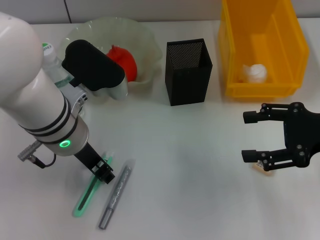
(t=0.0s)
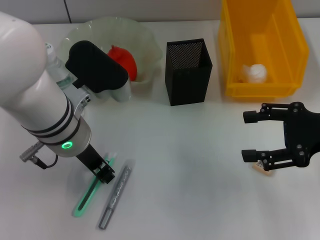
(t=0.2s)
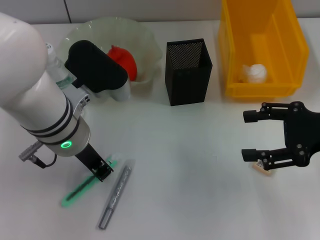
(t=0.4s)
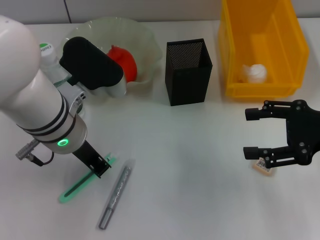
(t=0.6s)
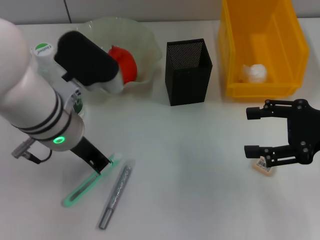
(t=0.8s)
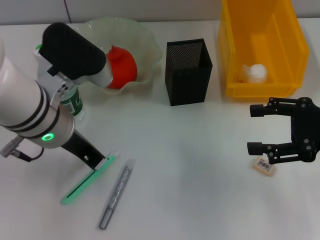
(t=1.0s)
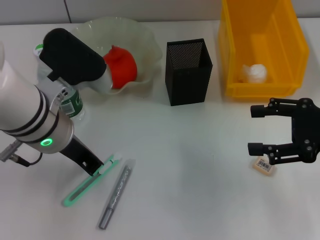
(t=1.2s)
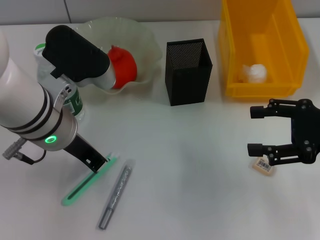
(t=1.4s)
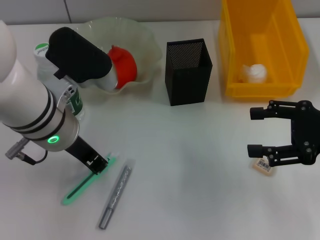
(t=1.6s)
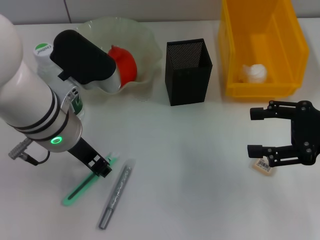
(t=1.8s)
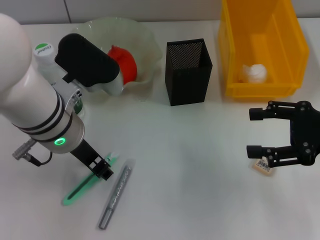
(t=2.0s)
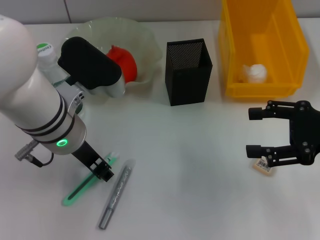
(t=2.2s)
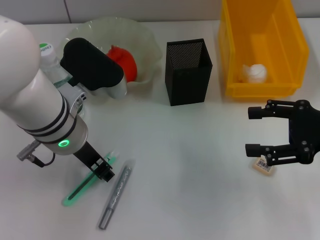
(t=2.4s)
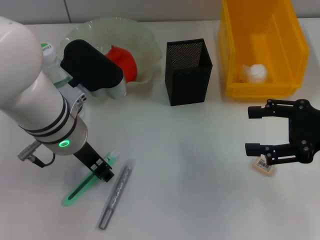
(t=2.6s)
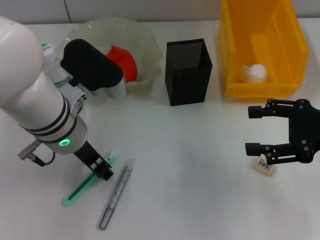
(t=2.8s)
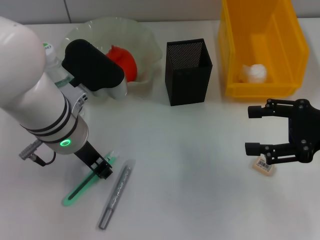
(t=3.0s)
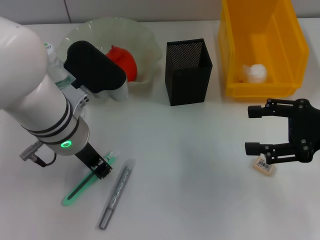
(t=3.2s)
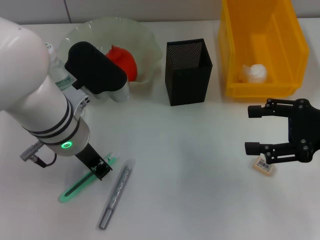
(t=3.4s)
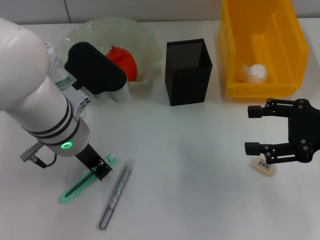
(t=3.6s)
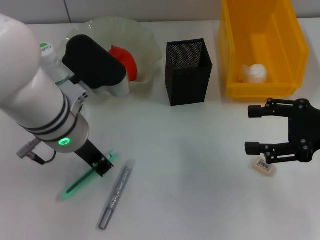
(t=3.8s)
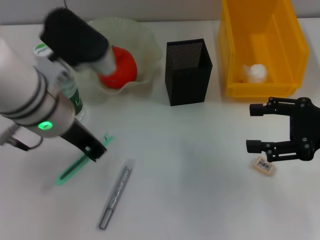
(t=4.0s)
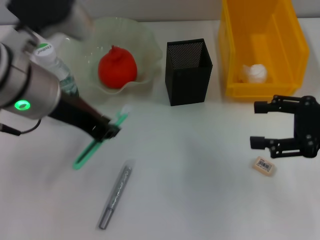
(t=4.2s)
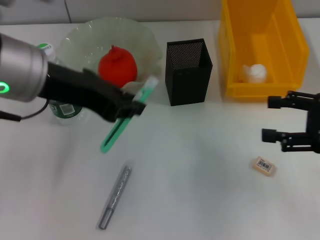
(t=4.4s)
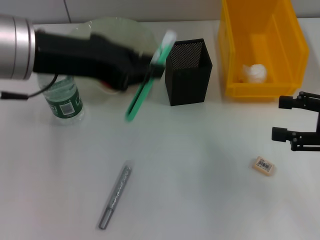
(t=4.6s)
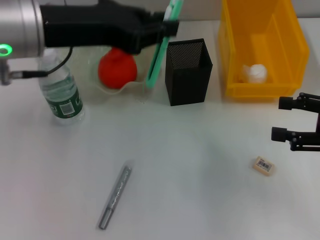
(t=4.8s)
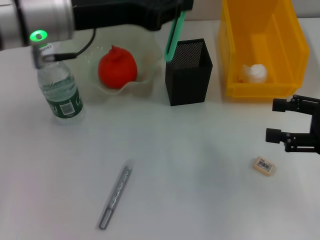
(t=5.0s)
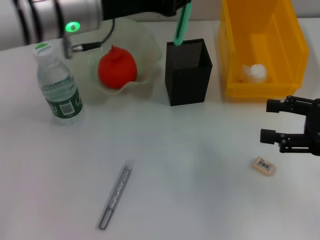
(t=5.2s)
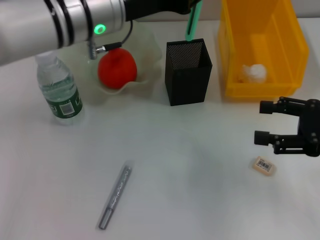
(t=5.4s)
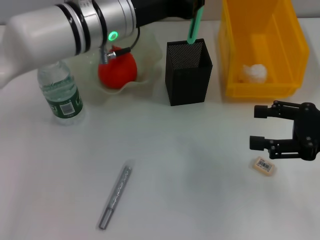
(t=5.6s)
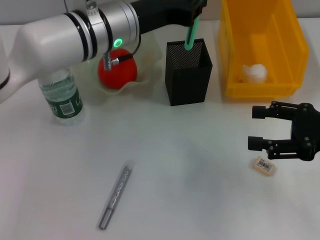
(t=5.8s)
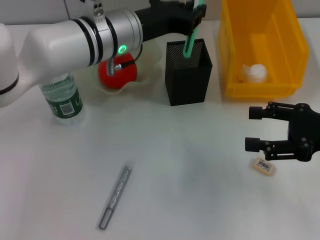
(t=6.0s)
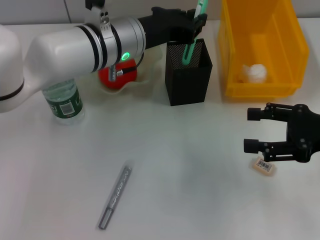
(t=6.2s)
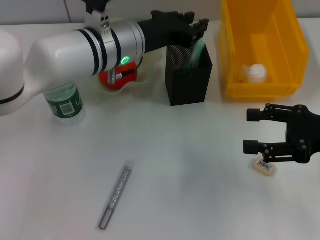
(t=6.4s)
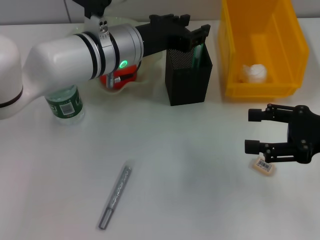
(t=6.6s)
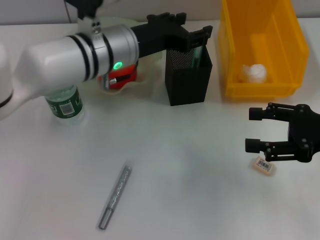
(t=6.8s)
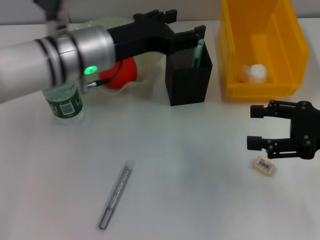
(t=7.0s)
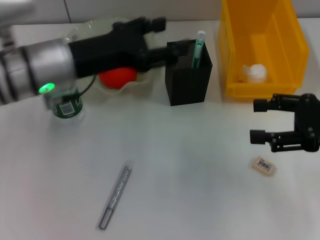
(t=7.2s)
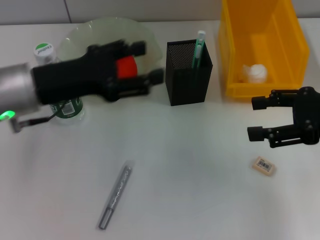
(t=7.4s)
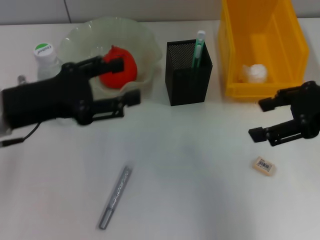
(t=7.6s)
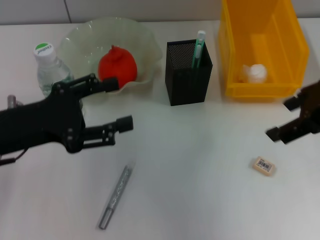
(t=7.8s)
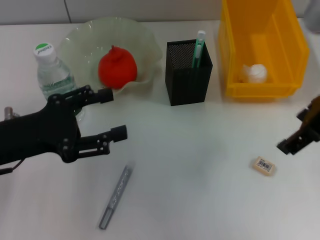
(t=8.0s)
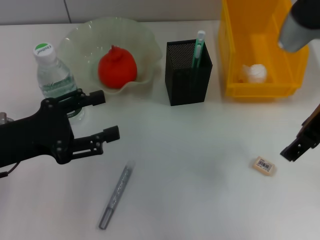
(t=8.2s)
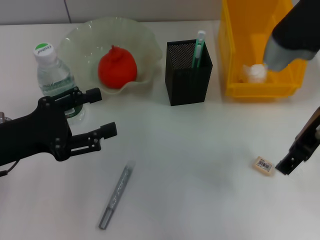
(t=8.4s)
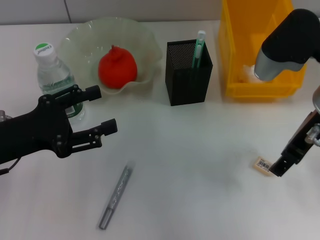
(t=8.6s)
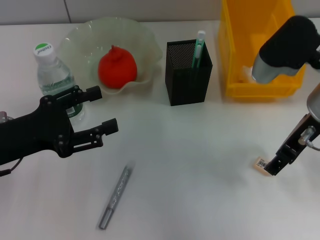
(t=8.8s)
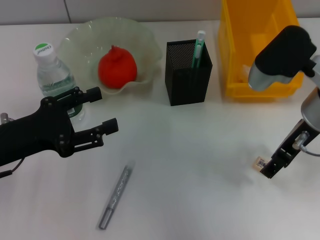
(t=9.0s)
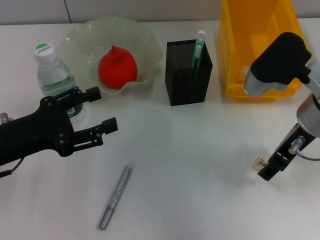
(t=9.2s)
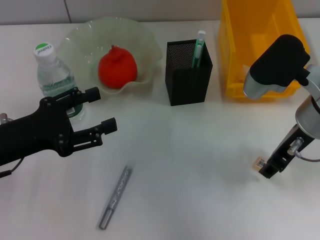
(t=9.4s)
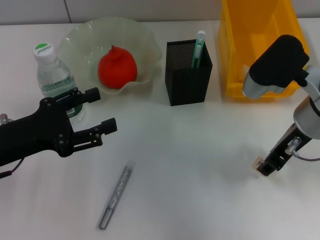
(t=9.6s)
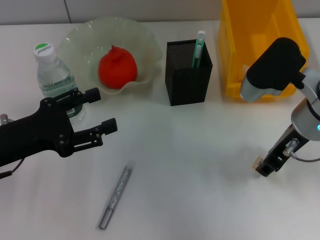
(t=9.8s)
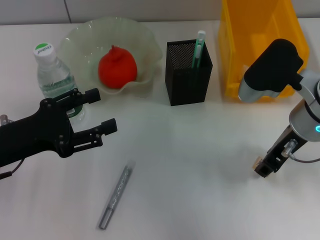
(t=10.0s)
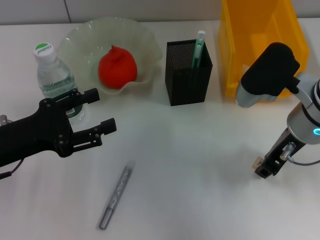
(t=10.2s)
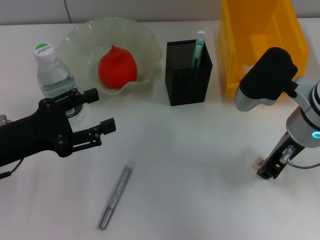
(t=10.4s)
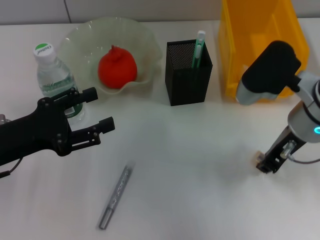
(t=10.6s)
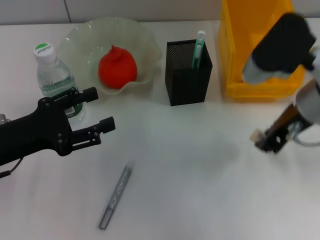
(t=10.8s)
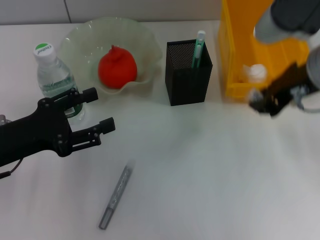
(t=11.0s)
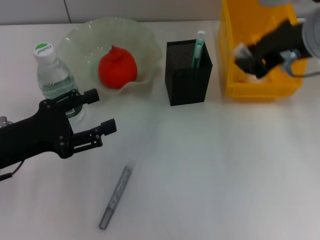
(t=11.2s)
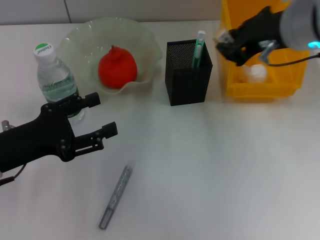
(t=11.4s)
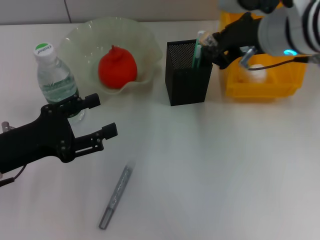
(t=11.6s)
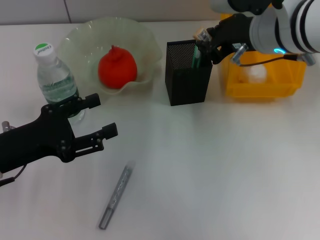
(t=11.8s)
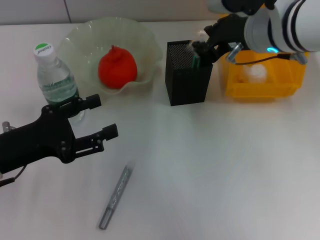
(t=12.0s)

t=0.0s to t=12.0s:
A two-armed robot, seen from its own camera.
Step, t=0.0s to t=3.2s: Grab the blue utility knife with the left hand.
Step, t=3.4s to t=6.8s: Place the blue utility knife into the pen holder with the left hand.
Step, t=7.0s to t=10.2s: Grab the eraser with the right hand.
t=0.0s to t=1.6s: The left gripper closes its fingers.
t=1.6s to t=3.0s: The left gripper opens its fingers.
t=3.0s to t=4.4s: The left gripper shifts approximately 10 cm upward.
t=4.4s to t=6.0s: The left gripper heads forward, downward and to the right, covering approximately 15 cm.
t=6.0s to t=7.6s: The left gripper heads to the left and backward, covering some 20 cm, and opens, while the right gripper moves upward, roughly 10 cm.
t=7.6s to t=9.0s: The right gripper heads to the left and downward, covering roughly 10 cm. The left gripper ends up approximately 5 cm from where it was.
t=9.0s to t=10.4s: The right gripper closes up.
t=10.4s to t=12.0s: The right gripper travels upward and forward by roughly 10 cm.

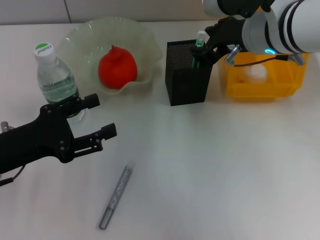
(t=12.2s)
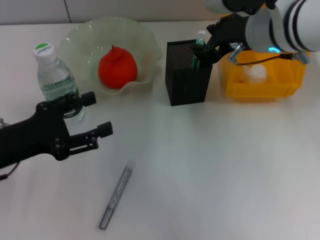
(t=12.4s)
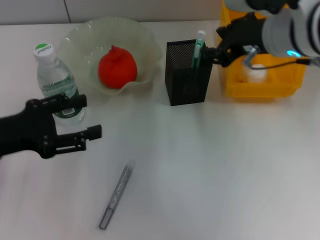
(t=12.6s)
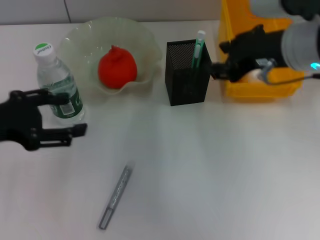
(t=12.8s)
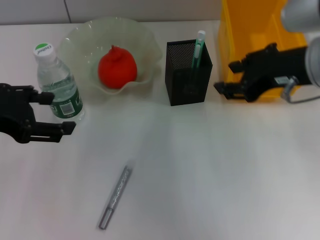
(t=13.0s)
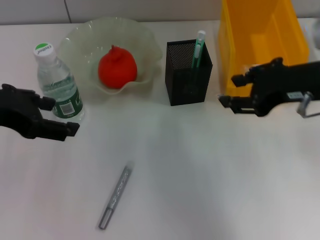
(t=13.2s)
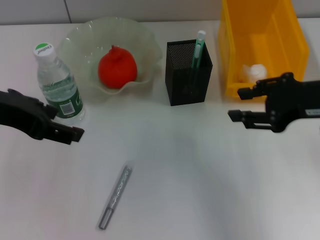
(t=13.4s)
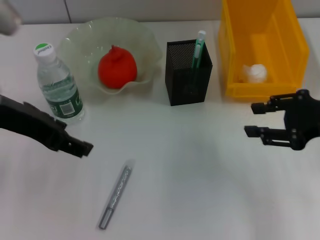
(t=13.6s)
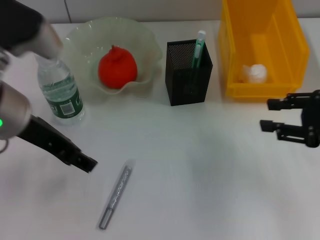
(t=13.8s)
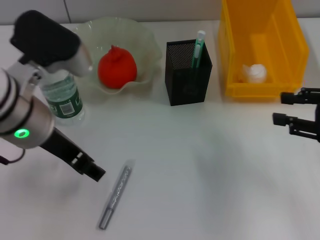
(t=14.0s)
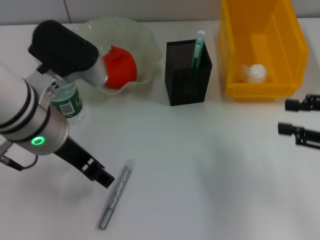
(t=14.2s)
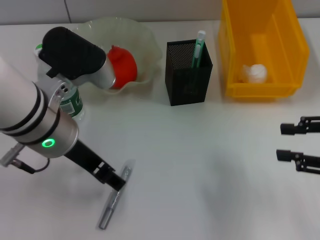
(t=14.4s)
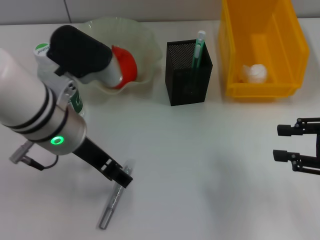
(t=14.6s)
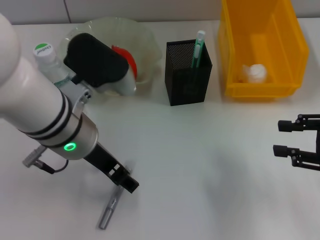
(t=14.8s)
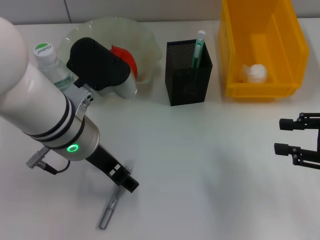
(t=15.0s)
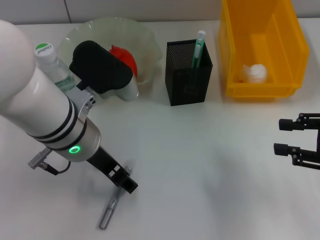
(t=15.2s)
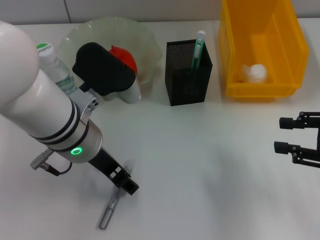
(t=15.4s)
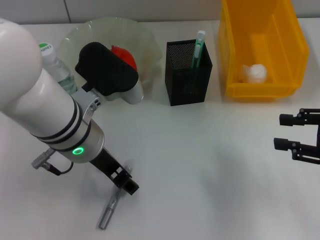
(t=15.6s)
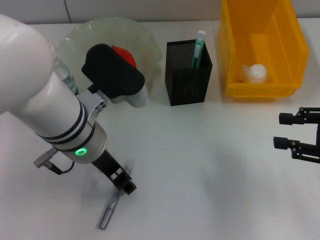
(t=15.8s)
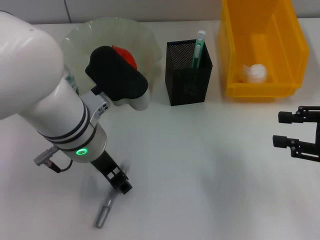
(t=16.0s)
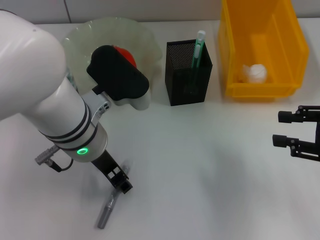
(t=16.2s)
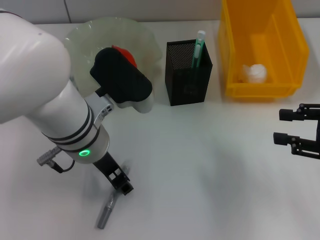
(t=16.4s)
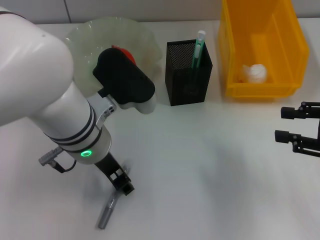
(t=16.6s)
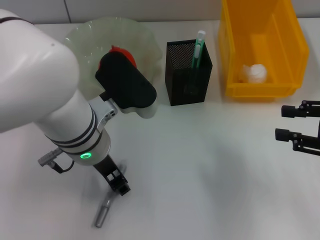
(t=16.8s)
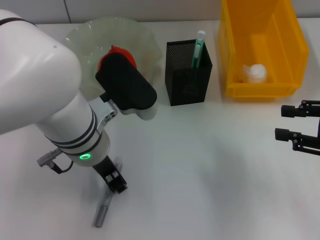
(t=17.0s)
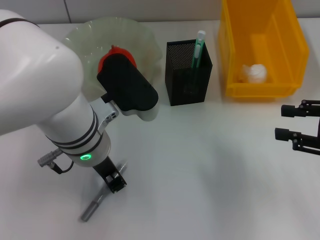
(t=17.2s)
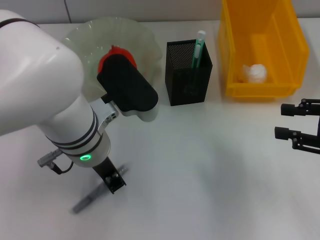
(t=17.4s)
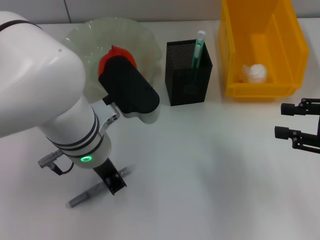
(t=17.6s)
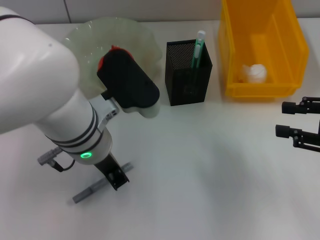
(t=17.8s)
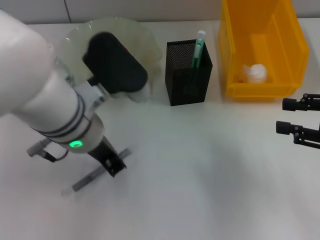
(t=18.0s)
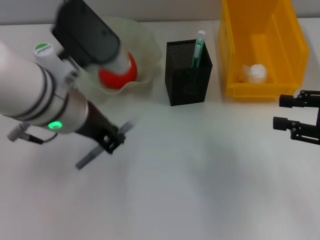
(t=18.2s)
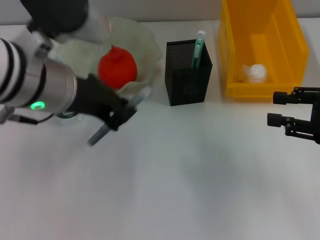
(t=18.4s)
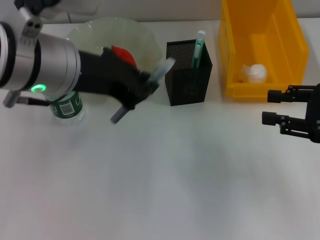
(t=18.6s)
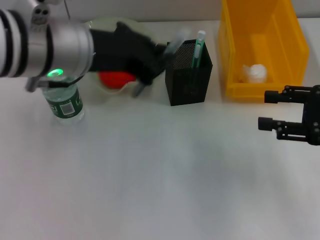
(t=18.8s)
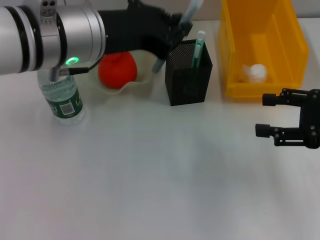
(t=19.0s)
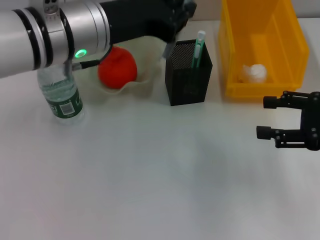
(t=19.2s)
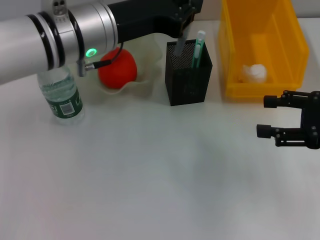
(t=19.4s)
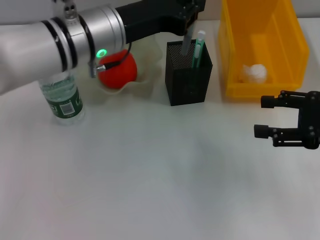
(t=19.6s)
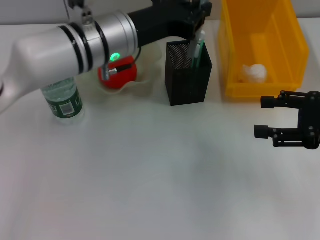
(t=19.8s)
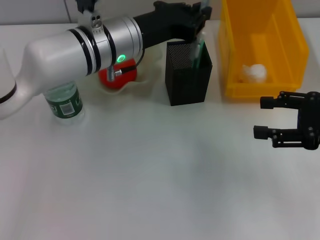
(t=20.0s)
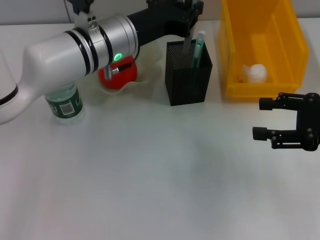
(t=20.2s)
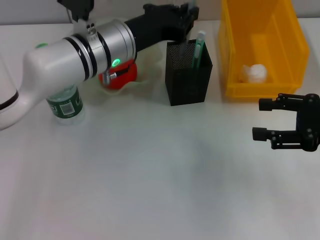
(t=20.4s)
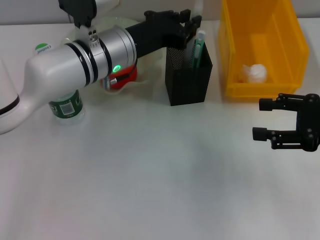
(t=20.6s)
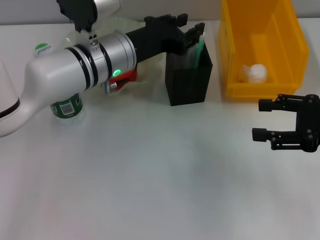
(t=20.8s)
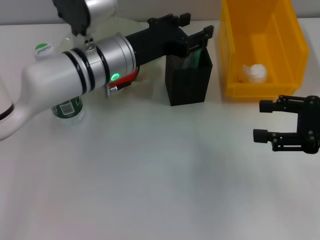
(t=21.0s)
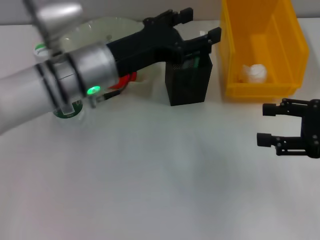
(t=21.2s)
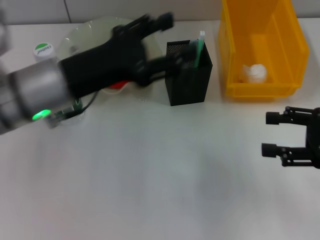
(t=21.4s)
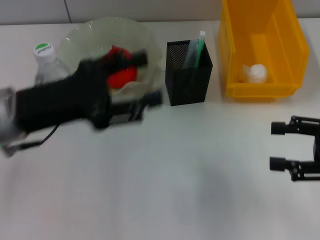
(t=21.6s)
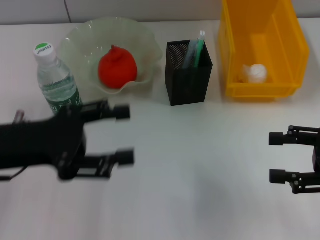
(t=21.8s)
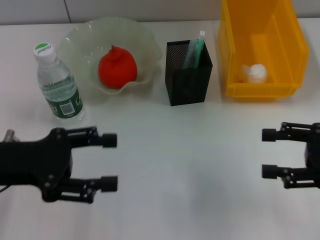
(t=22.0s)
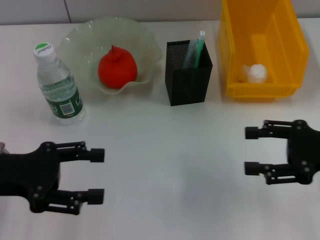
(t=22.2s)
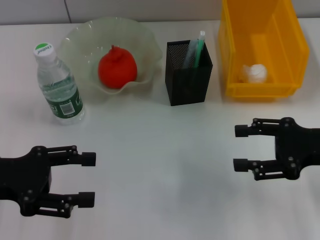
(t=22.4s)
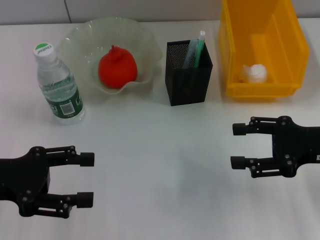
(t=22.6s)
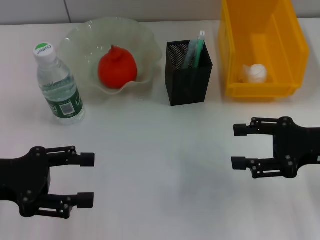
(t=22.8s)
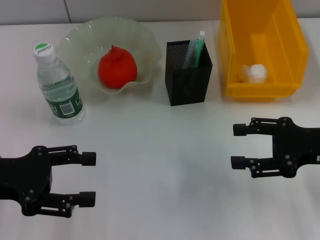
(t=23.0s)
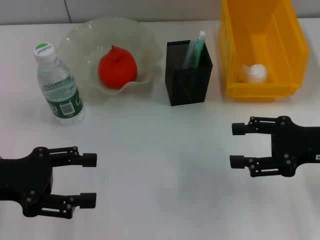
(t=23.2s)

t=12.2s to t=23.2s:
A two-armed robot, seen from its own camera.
Step, t=12.6s to t=17.4s: Grab the gray glue with the left hand.
Step, t=17.6s to t=21.0s: Place the gray glue into the pen holder with the left hand.
t=12.2s to t=13.8s: The left gripper travels upward and to the right by some 15 cm. Meanwhile the right gripper is displaced to the right and backward by roughly 20 cm.
t=13.8s to t=15.4s: The left gripper goes approximately 10 cm to the right and downward.
t=15.4s to t=17.0s: The left gripper closes up.
t=17.0s to t=18.4s: The left gripper shifts about 10 cm upward, and closes its fingers.
t=18.4s to t=20.0s: The left gripper is displaced forward, downward and to the right by about 15 cm.
t=20.0s to t=21.6s: The left gripper goes approximately 15 cm to the left and backward, and opens.
t=21.6s to t=23.2s: The right gripper ends up about 5 cm from where it was, while the left gripper is displaced to the left by some 10 cm.
